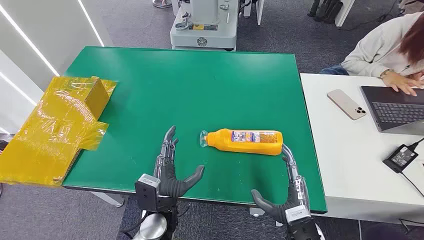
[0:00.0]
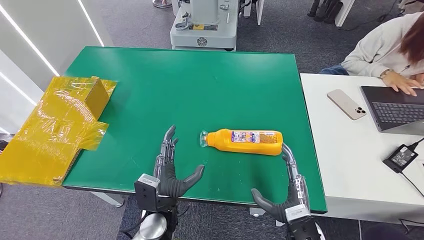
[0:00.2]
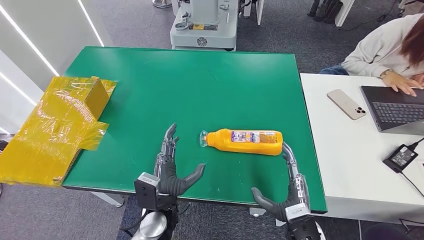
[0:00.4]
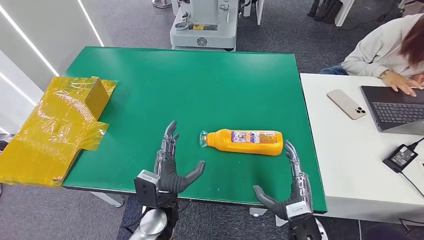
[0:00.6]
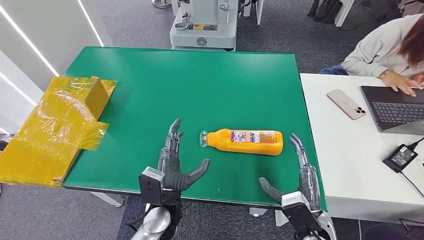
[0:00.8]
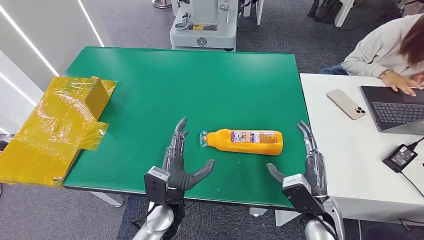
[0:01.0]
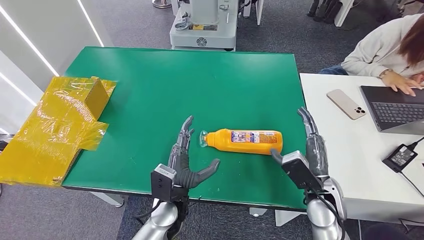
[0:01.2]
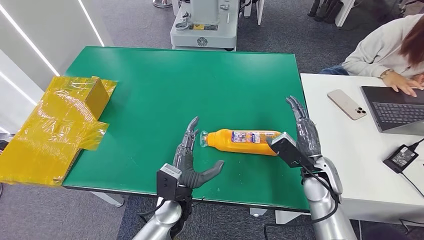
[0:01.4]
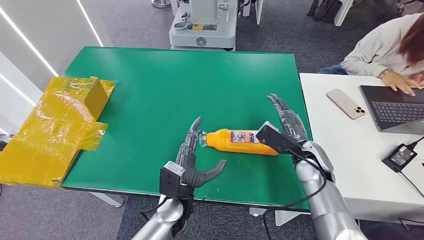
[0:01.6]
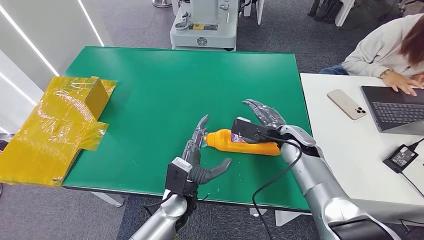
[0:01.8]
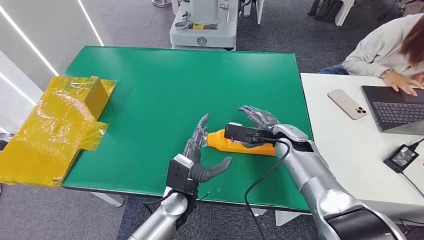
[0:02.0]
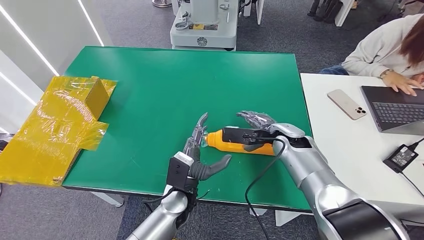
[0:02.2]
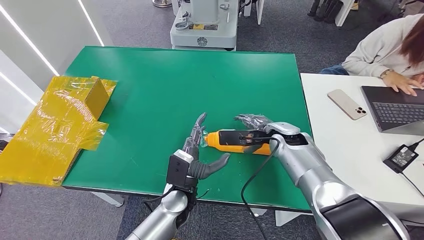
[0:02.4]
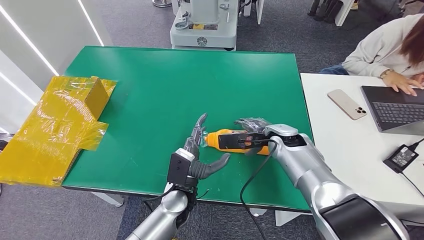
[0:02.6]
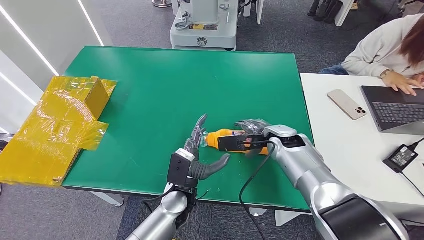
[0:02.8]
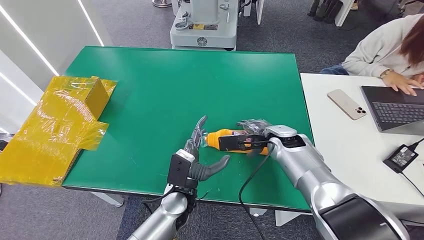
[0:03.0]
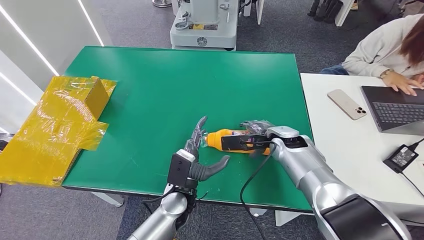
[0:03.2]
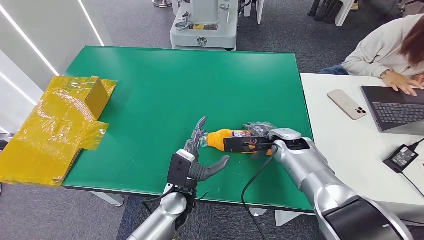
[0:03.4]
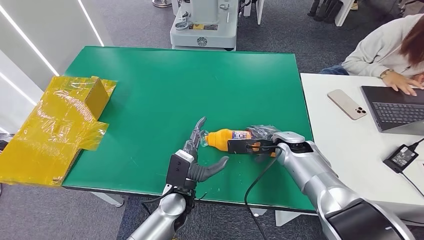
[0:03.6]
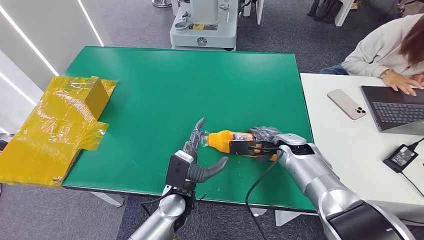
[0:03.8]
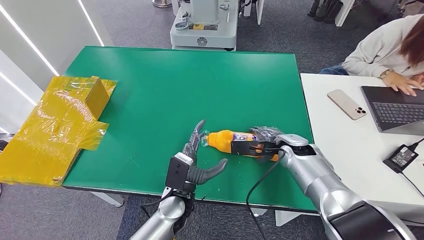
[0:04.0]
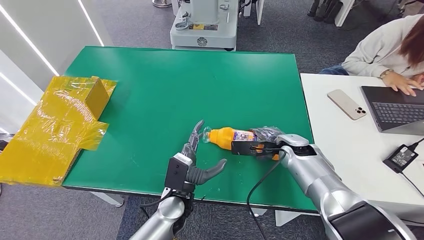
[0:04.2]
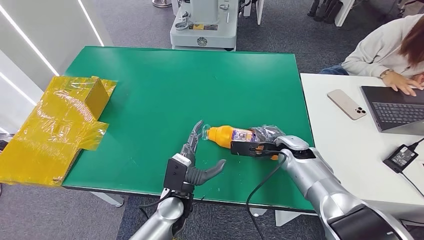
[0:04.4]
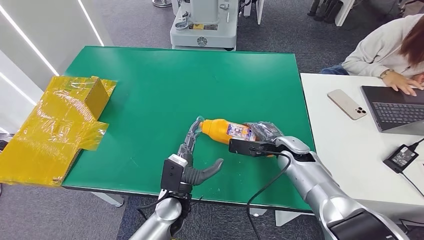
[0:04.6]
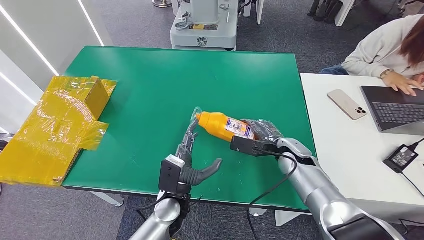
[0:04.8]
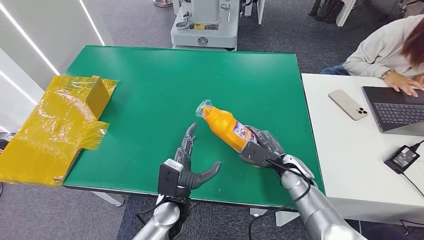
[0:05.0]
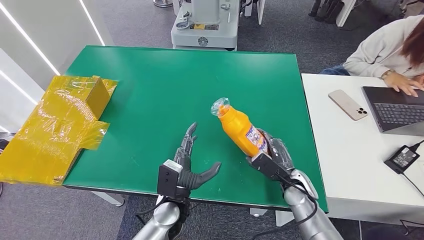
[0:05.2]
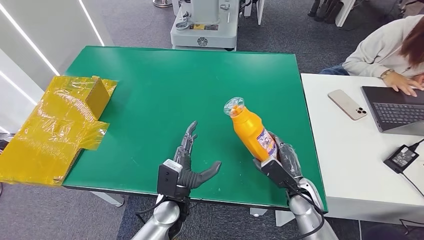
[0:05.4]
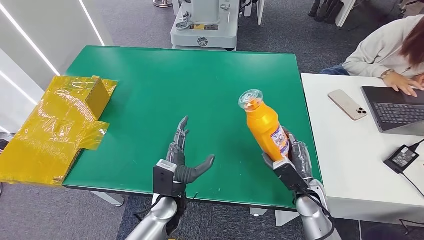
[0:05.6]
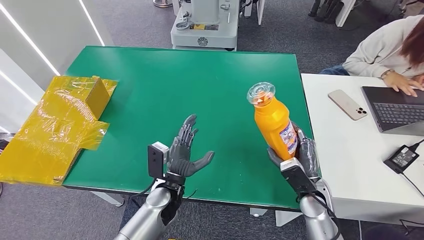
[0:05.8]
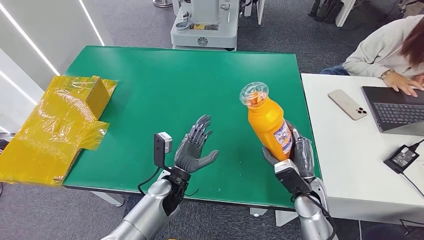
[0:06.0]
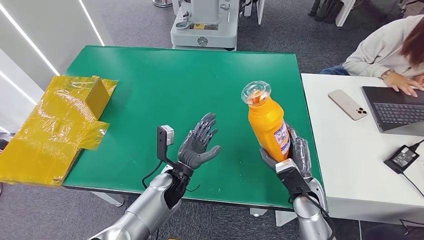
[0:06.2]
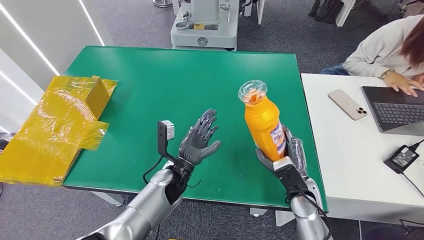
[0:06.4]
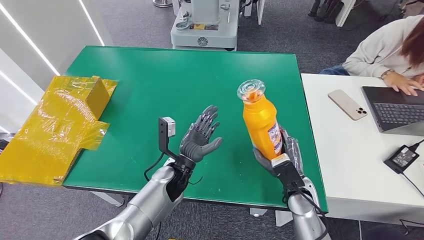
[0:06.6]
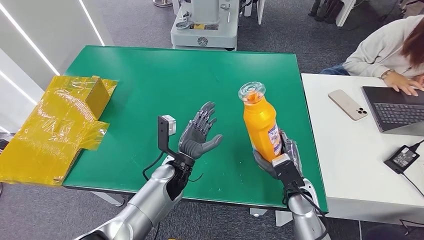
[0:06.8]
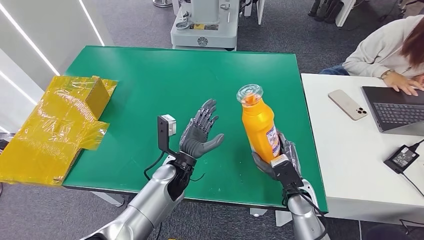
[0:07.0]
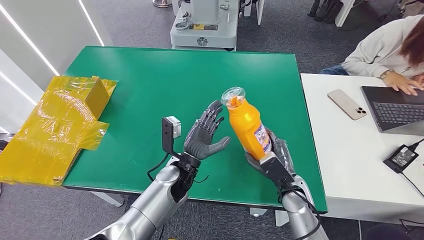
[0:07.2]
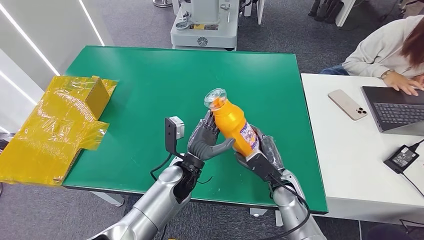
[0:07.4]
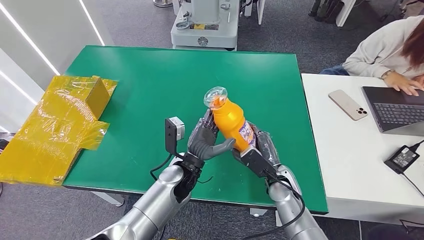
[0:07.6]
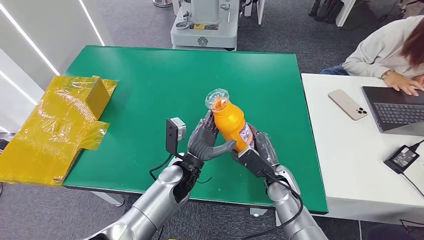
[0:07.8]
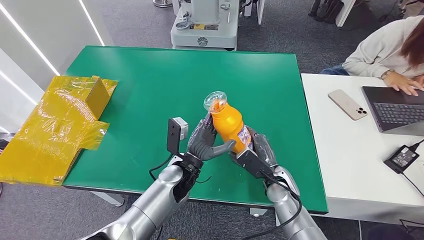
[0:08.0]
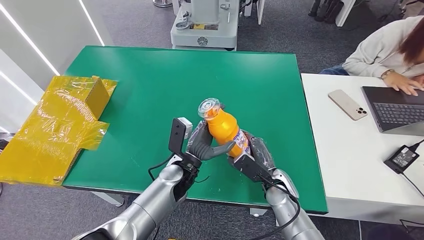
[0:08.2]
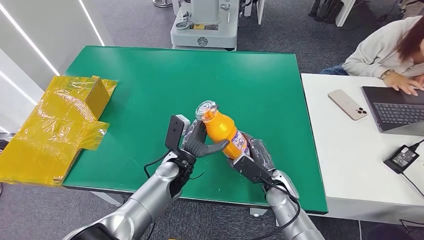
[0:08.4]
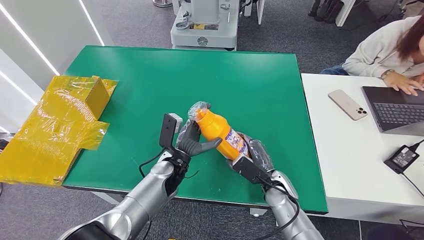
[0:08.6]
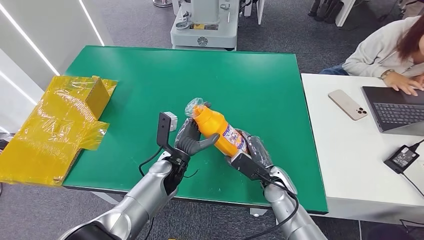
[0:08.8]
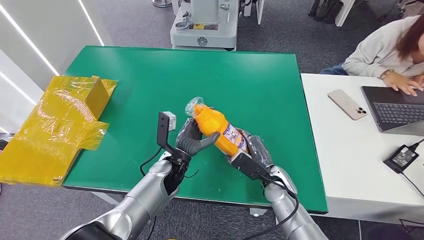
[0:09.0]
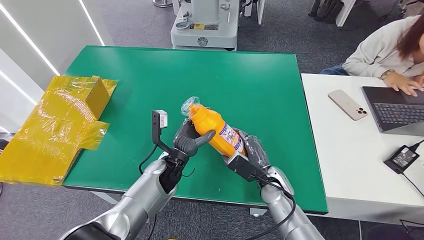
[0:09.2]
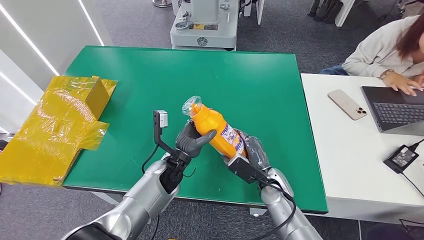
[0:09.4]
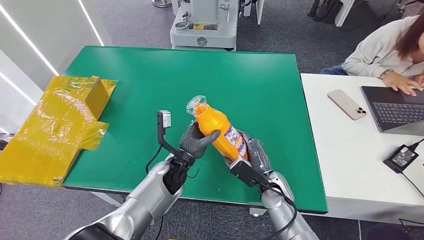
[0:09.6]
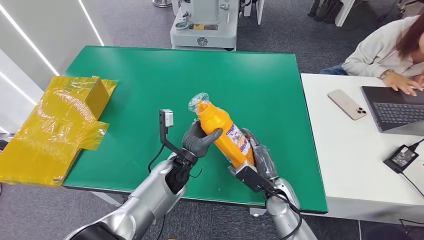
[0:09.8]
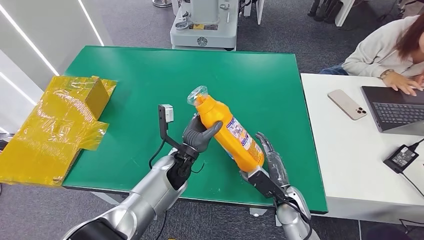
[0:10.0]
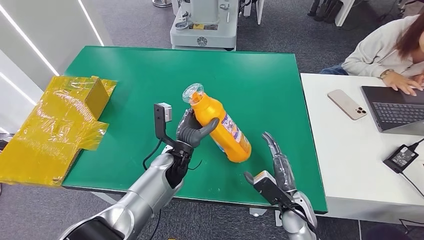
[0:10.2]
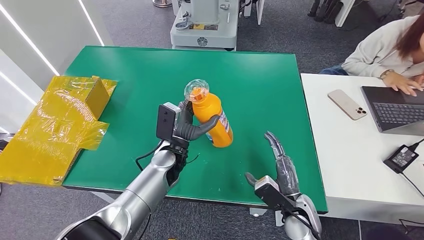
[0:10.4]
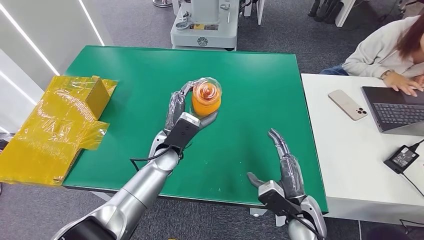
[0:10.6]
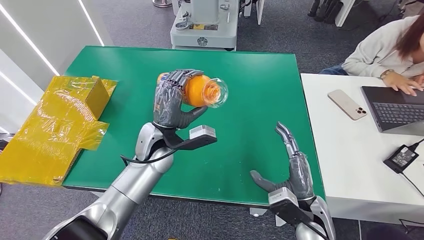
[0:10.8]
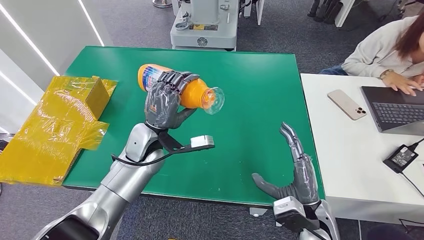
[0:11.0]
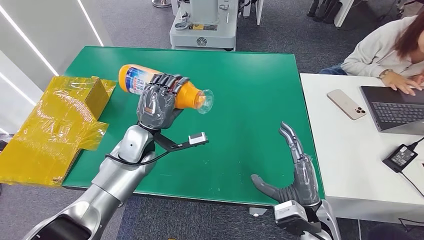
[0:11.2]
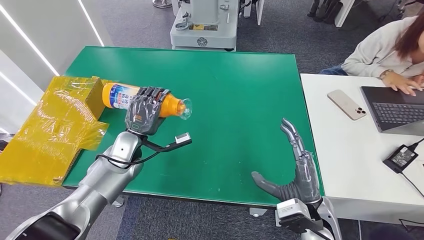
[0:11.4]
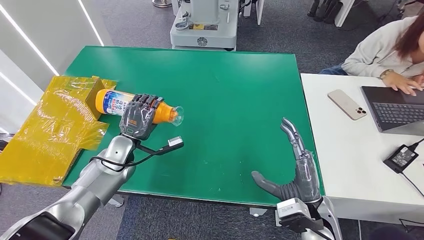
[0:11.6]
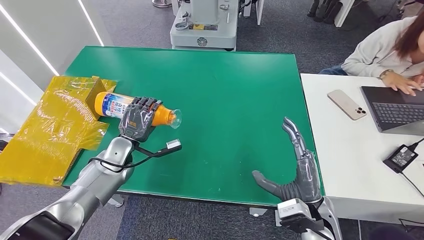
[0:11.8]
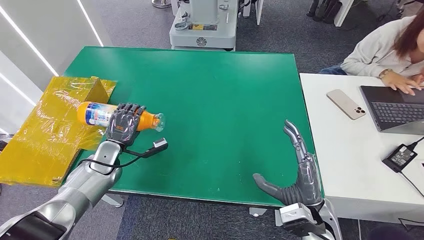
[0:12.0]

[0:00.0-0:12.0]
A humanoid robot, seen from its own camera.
Step, 0:00.0 to 0:06.2: Pick up the bottle from the table.
0:01.6 to 0:03.0: The right hand ends up roughly 5 cm from where it was.
0:03.0 to 0:04.4: The right hand moves some 5 cm.
0:04.4 to 0:06.0: The right hand heads backward, covering roughly 10 cm.
0:06.0 to 0:07.6: The right hand changes place by about 5 cm, while the left hand shifts by roughly 5 cm.
0:07.6 to 0:09.0: The left hand moves roughly 5 cm.
0:09.0 to 0:10.4: The right hand goes some 10 cm backward.

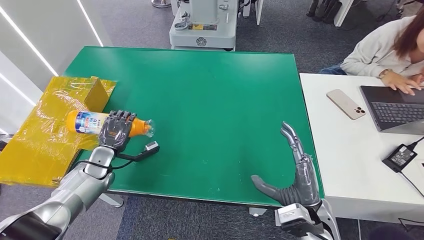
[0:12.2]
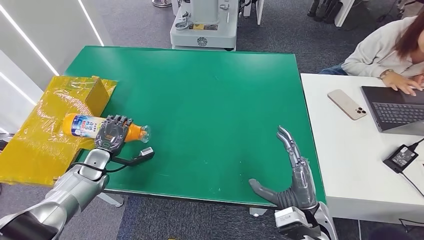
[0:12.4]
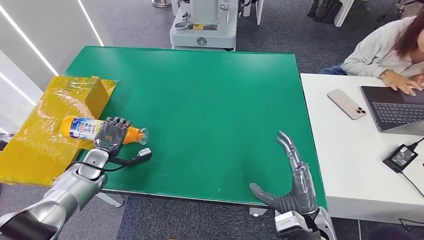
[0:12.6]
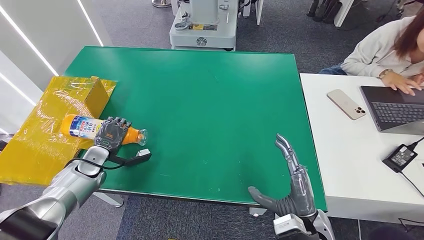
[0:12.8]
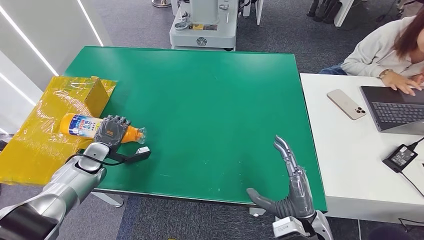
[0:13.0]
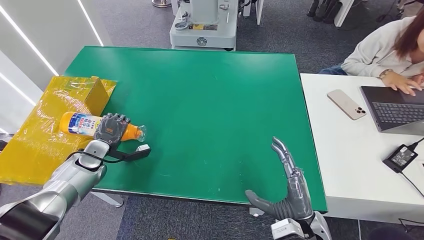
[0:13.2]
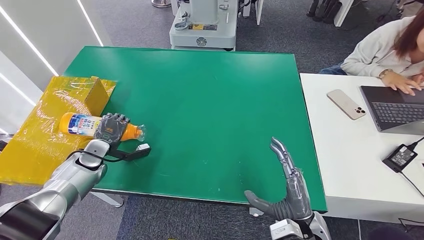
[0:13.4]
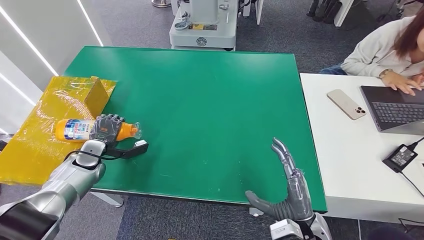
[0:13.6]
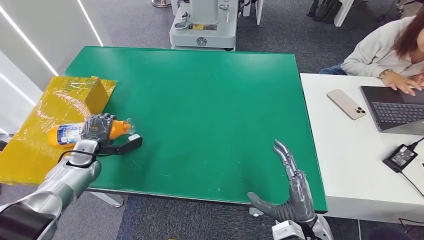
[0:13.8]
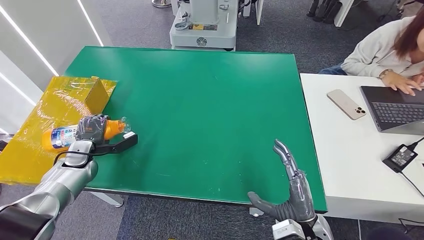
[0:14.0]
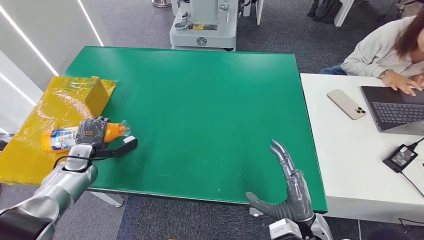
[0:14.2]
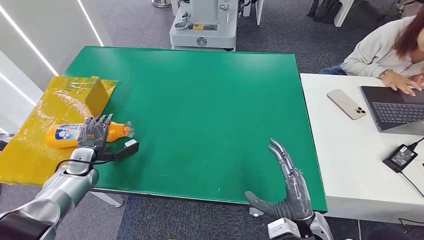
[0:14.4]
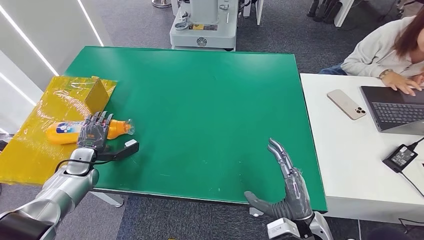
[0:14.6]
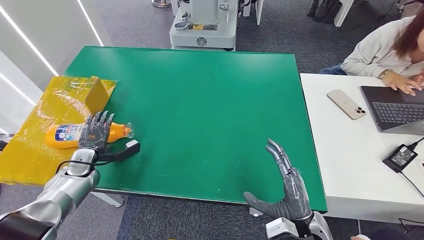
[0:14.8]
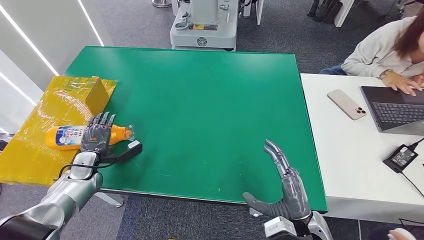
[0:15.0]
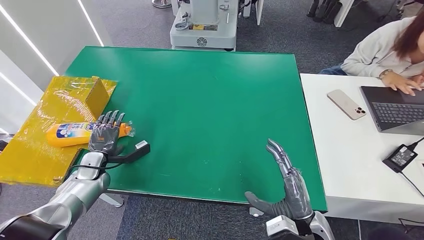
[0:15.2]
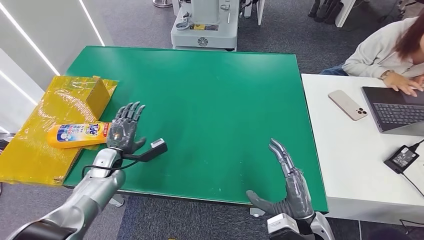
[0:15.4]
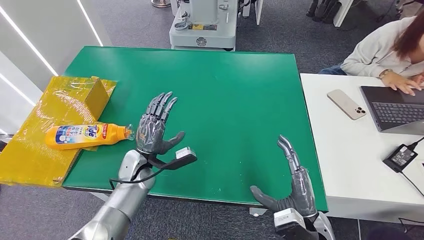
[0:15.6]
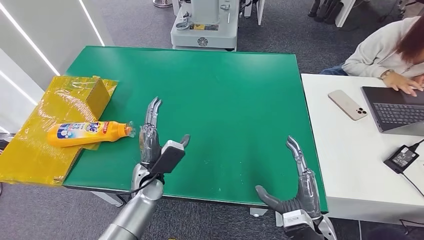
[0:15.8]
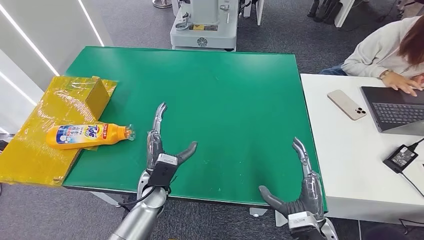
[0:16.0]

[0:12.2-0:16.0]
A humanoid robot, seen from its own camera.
Step, 0:12.2 to 0:16.0: Turn the bottle to the front side.
0:12.2 to 0:13.4: The hands stay close to where they were, moving slightly.
0:14.8 to 0:16.0: The left hand travels to the right by some 25 cm.

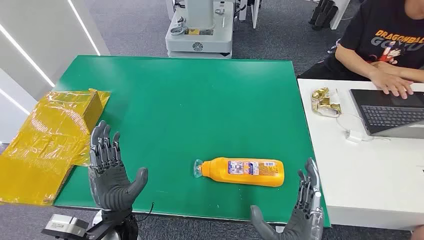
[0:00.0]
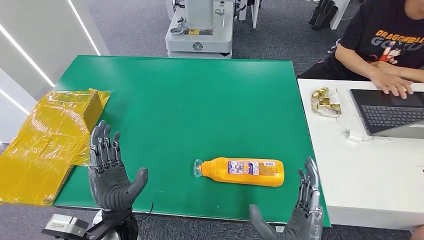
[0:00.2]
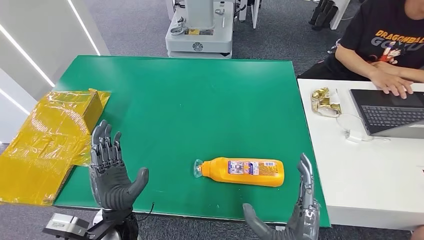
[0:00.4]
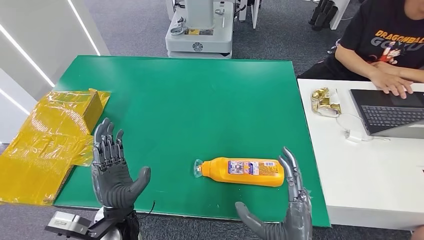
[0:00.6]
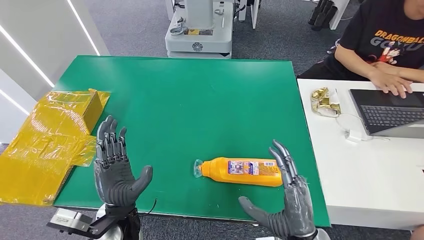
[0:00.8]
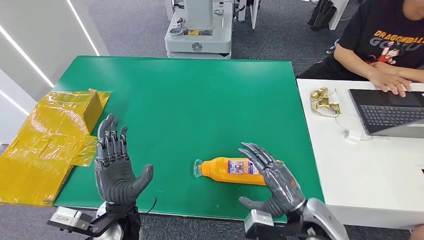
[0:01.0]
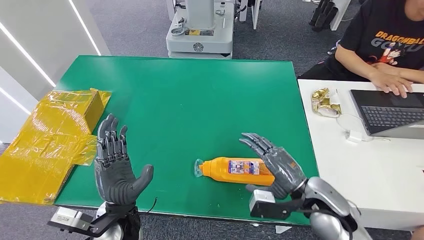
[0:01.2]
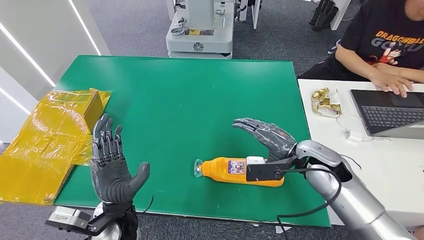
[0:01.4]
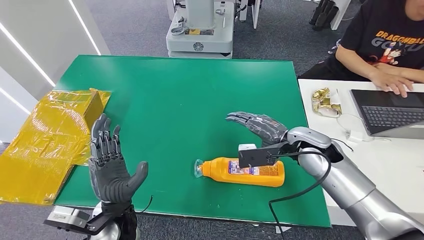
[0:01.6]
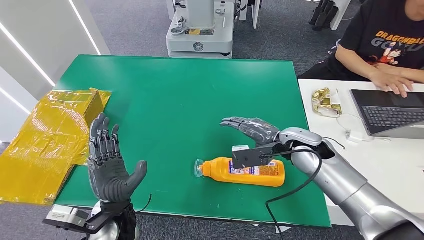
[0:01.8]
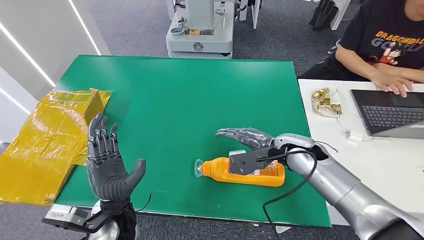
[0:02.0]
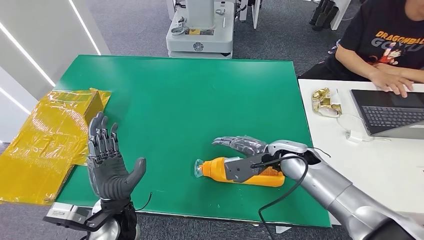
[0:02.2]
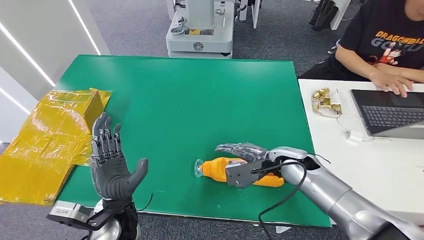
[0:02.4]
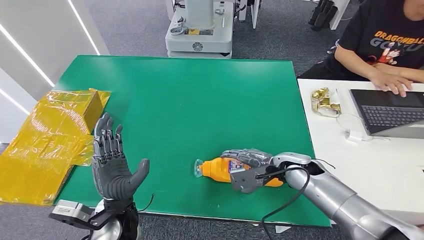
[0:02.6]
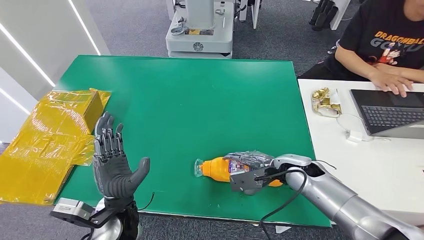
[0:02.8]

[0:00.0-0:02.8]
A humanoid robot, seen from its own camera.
0:01.4 to 0:02.8: The right hand shifts some 5 cm forward.
